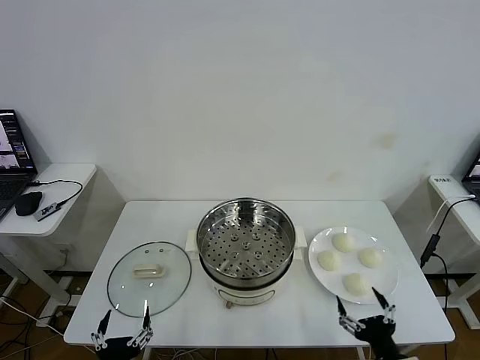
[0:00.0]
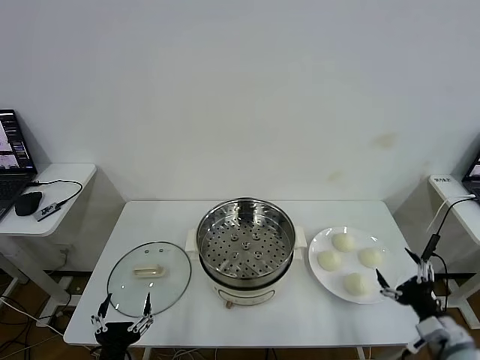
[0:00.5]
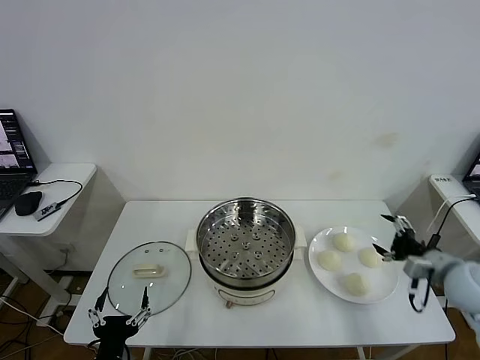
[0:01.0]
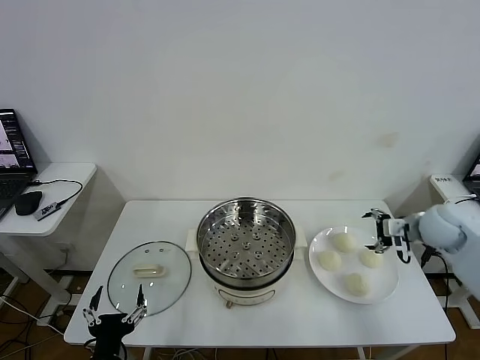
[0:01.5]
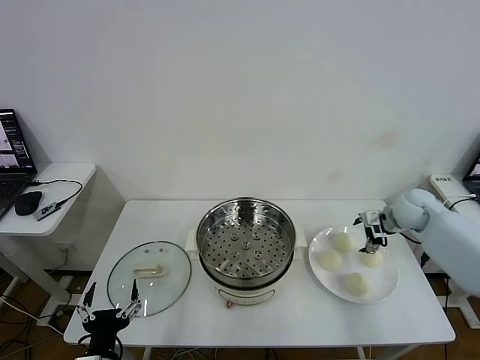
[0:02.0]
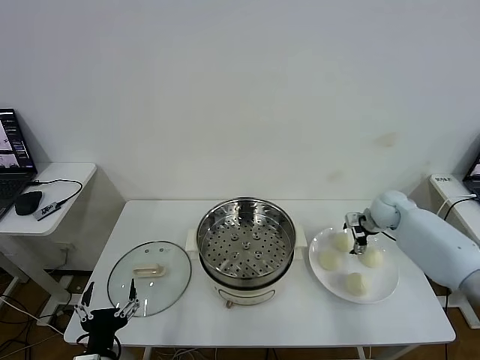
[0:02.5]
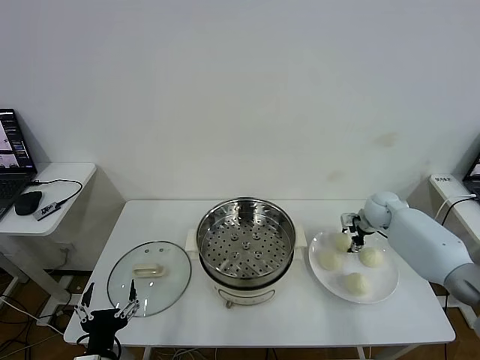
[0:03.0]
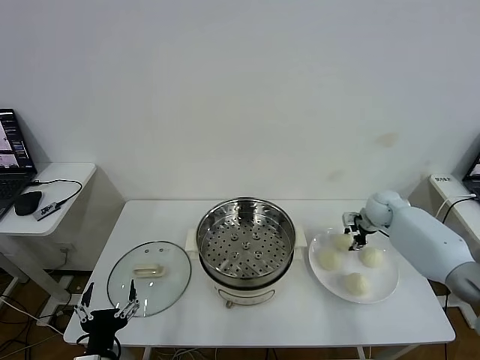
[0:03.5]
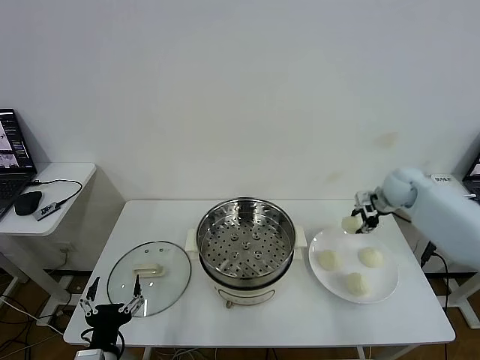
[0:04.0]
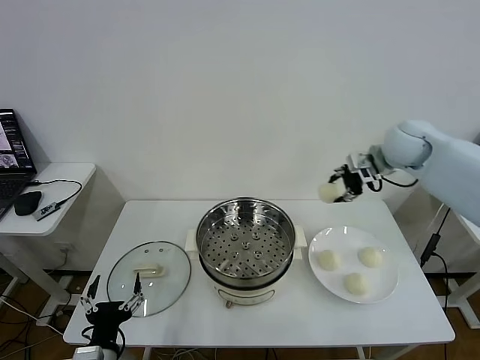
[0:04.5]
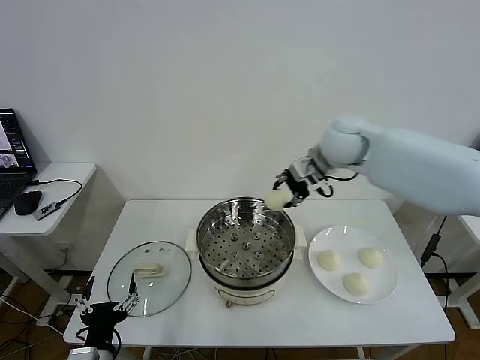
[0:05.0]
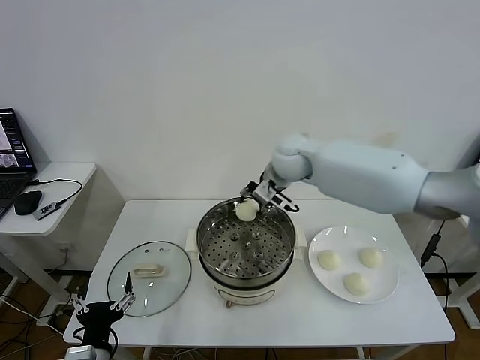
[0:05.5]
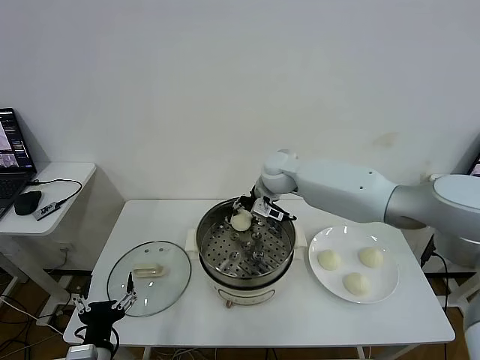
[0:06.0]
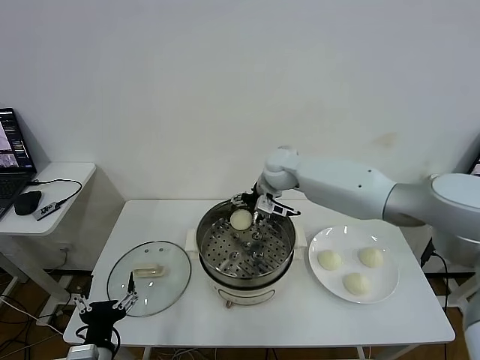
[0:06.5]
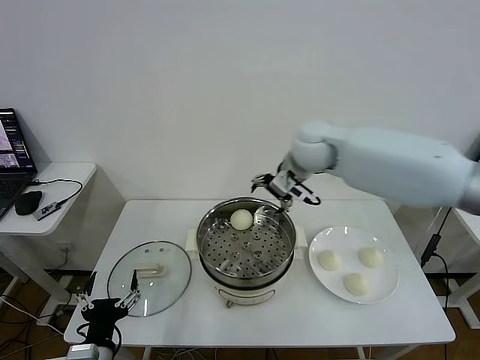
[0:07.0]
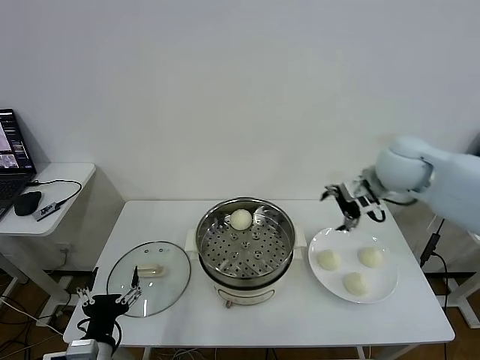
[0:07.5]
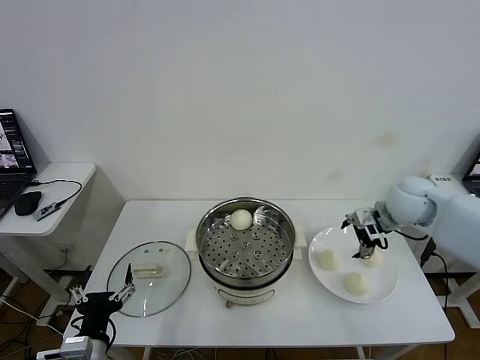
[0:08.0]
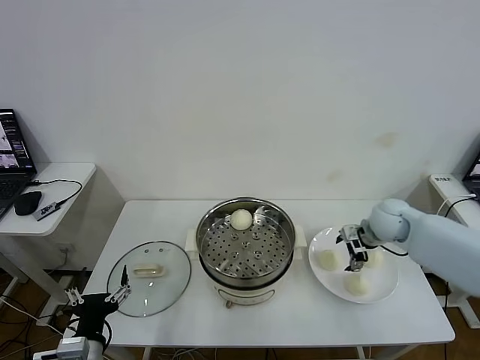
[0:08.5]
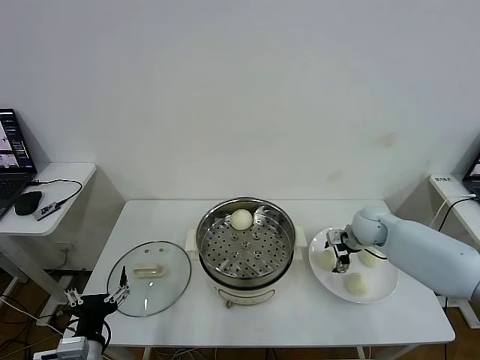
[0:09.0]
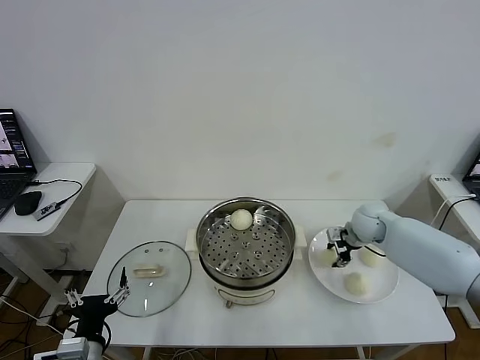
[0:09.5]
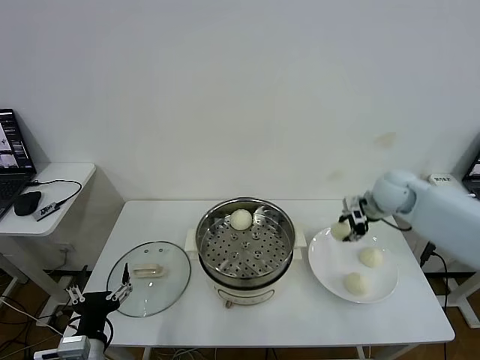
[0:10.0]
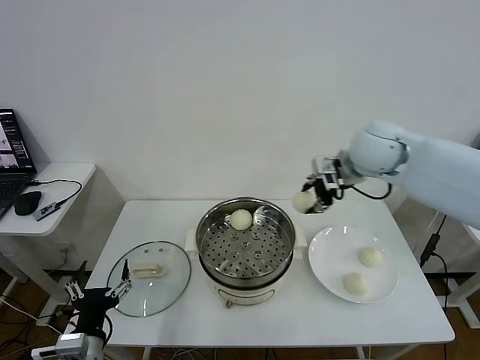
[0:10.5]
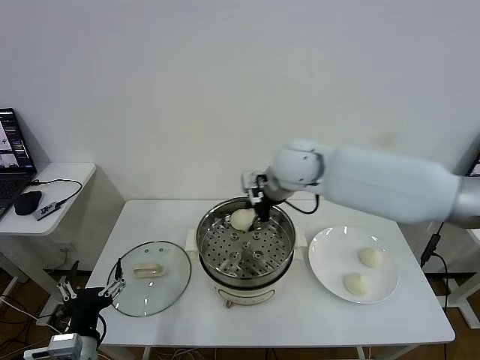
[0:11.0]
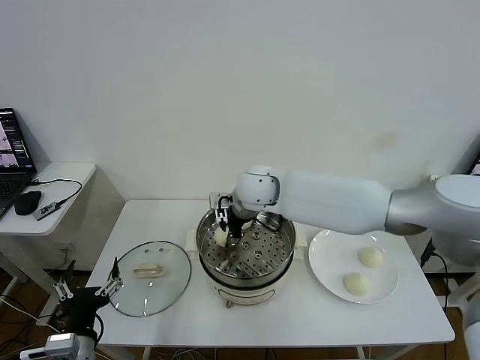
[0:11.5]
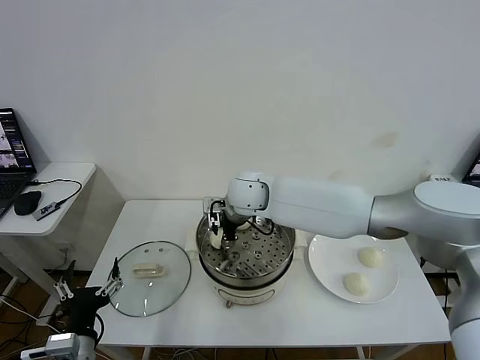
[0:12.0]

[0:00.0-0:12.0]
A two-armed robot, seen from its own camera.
Task of the whole recording: take steamed baozi put them in steamer then cover it.
Step, 0:00.0 to 0:03.0: Grasp the baozi in the plate with right gripper.
Step, 0:03.5 to 0:06.0: Place the baozi on the steamer with right gripper.
Step, 0:06.5 to 0:09.0: Grasp the baozi in the plate with right gripper.
0:02.0 to 0:04.0: The right gripper moves upward, some 5 cm, and closes up.
0:04.0 to 0:06.0: The right gripper is displaced to the left by about 30 cm.
0:06.0 to 0:08.0: The right gripper goes roughly 25 cm to the right, and opens.
0:08.0 to 0:10.0: The right gripper reaches roughly 10 cm downward, then returns, and closes up.
0:10.0 to 0:12.0: The right gripper shifts some 35 cm to the left.

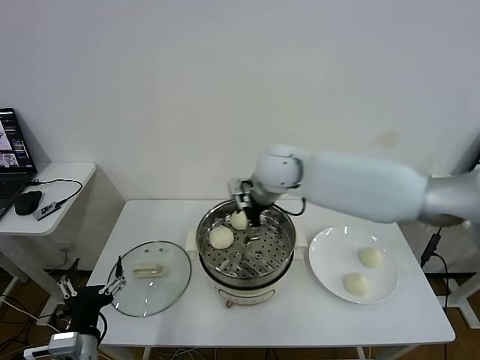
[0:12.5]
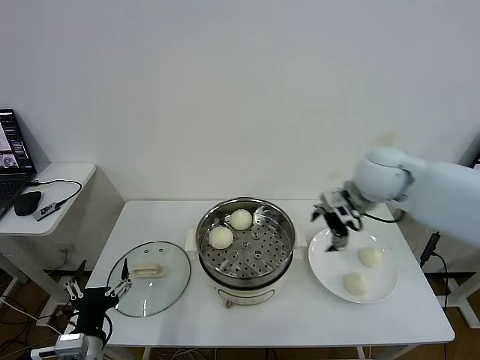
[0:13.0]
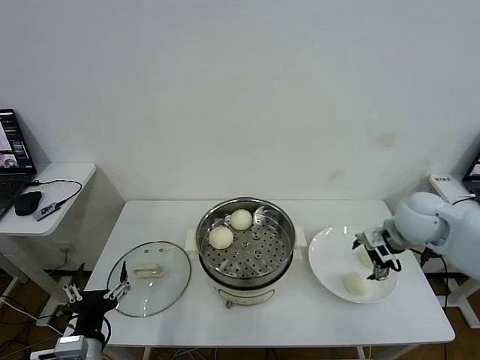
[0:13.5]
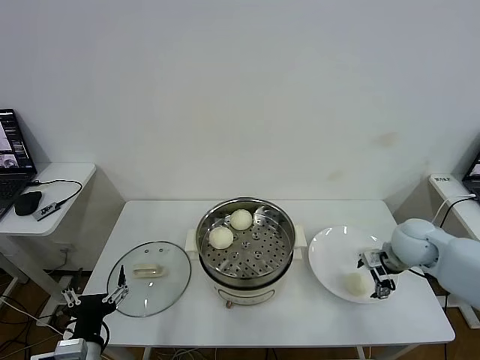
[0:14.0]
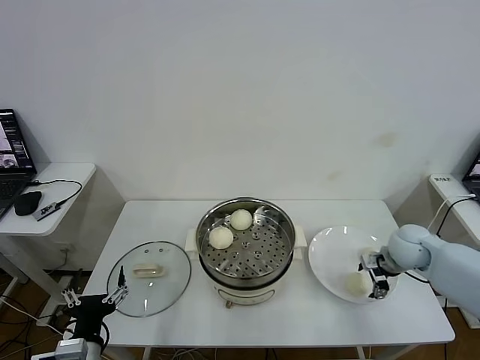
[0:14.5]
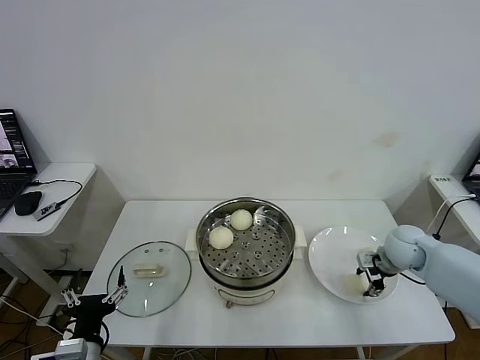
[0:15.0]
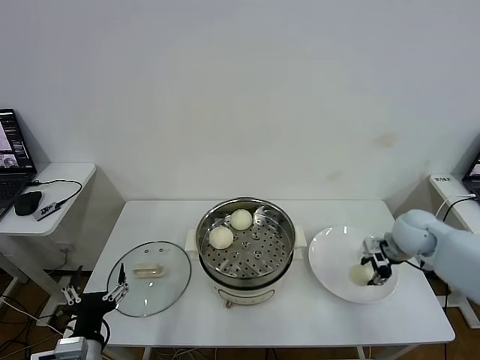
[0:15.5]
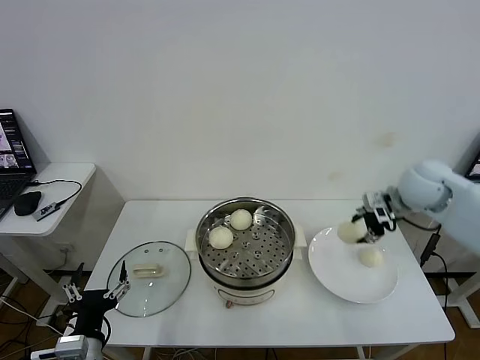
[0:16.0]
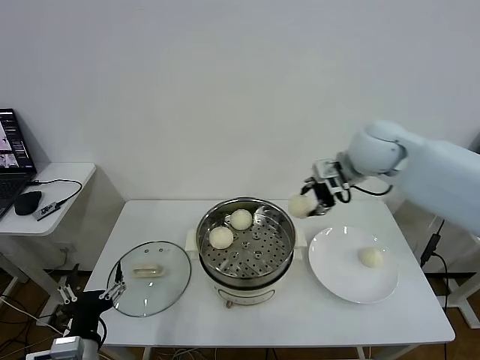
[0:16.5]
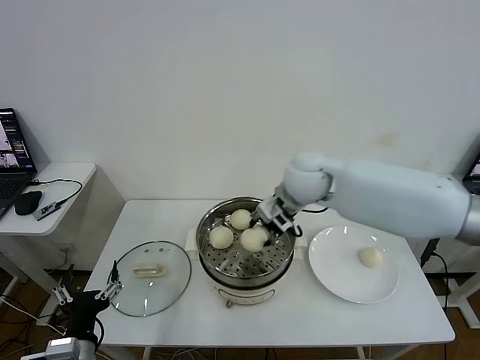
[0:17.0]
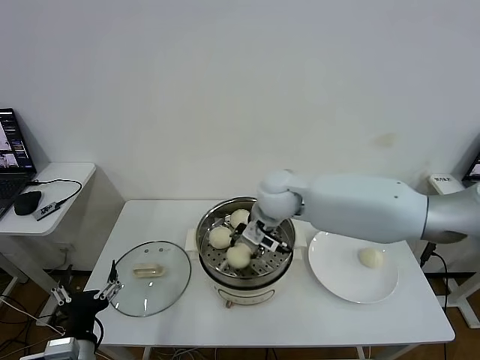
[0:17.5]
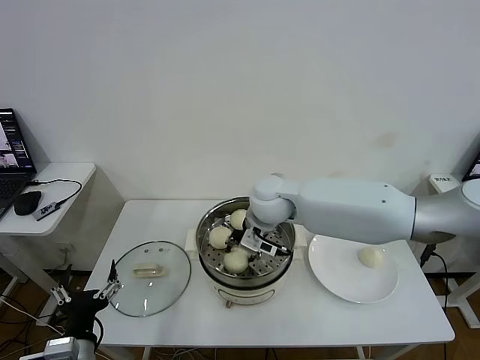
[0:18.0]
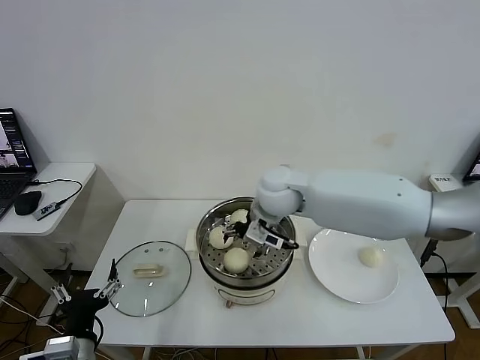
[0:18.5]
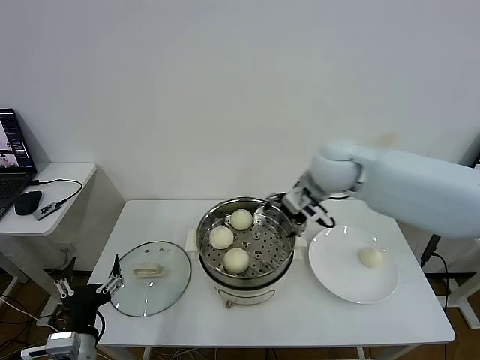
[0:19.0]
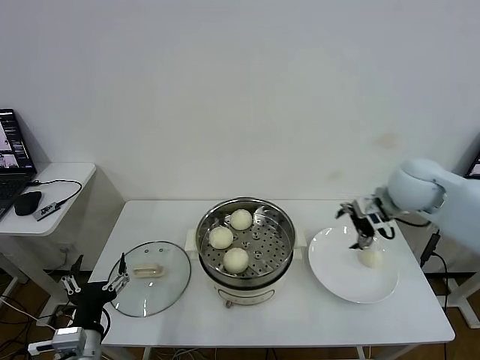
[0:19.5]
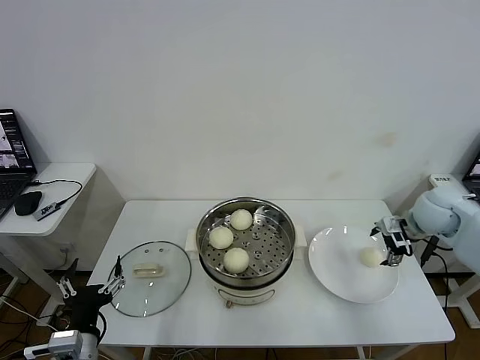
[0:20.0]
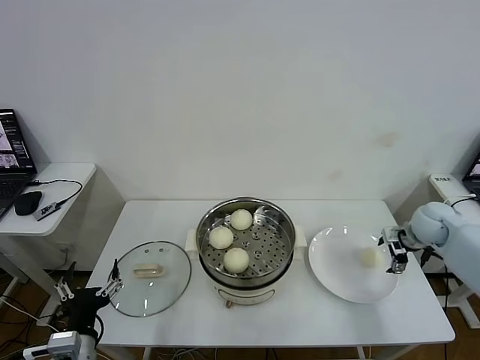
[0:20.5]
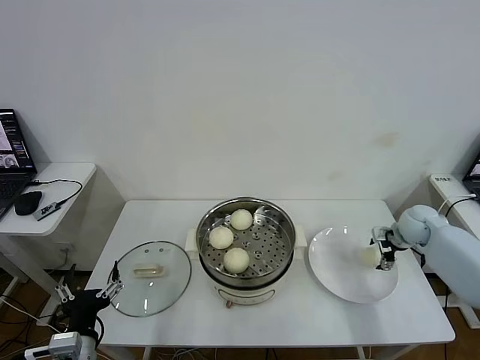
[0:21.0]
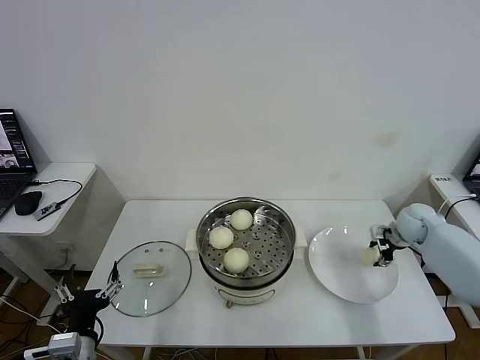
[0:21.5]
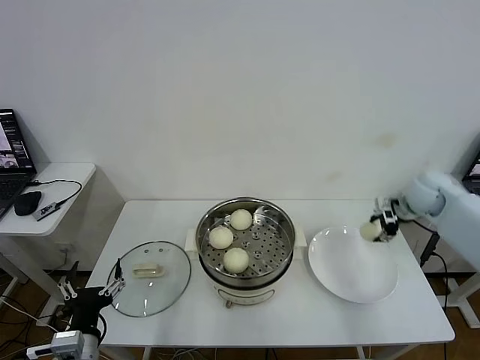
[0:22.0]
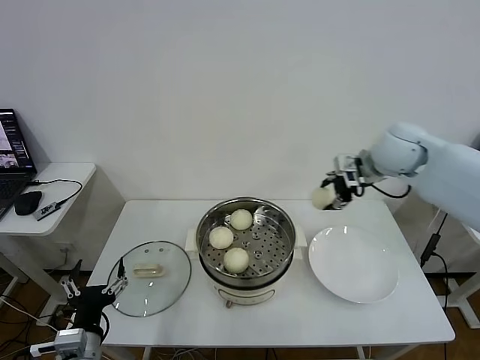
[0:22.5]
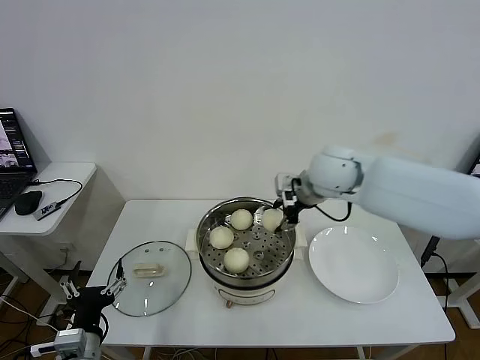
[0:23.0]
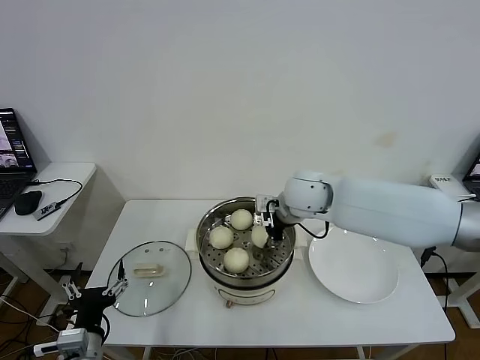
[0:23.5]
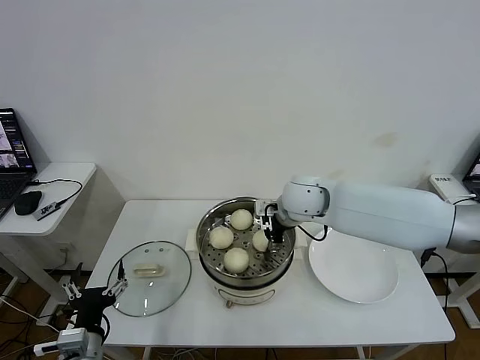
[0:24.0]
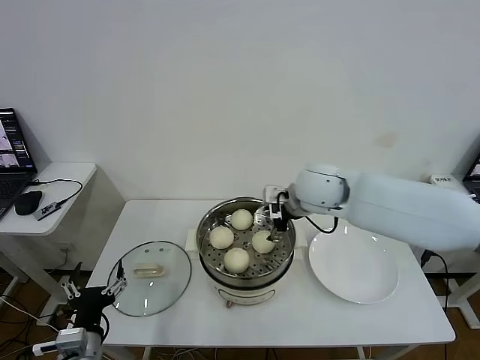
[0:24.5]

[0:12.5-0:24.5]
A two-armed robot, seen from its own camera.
Task of the whole recording: take steamed baozi put them in steamer then cover it.
Step, 0:12.5 to 0:15.0: Grasp the baozi in the plate with right gripper.
Step, 0:15.5 to 0:18.0: Place the baozi on the steamer with right gripper.
Step, 0:18.5 to 0:21.5: Grasp the baozi in the plate with right gripper.
Step, 0:22.0 to 0:24.0: Place the baozi on the steamer with right gripper.
0:12.5 to 0:14.5: The right gripper is displaced to the right and downward by some 35 cm.
0:14.5 to 0:16.5: The right gripper shifts approximately 25 cm upward and to the left, and closes its fingers.
0:16.5 to 0:18.5: The right gripper heads to the left and downward, covering about 20 cm, and opens.
0:18.5 to 0:20.5: The right gripper travels to the right by some 40 cm.
0:20.5 to 0:22.5: The right gripper moves upward and to the left, about 25 cm, and closes.
0:22.5 to 0:24.5: The right gripper travels to the left and downward by approximately 15 cm, and opens.

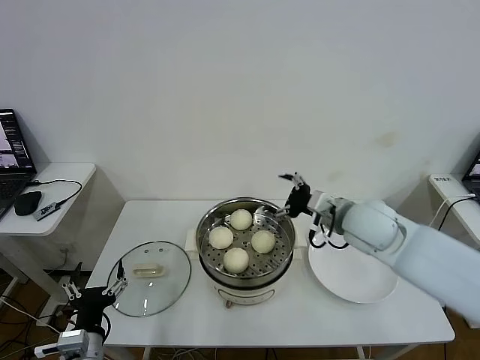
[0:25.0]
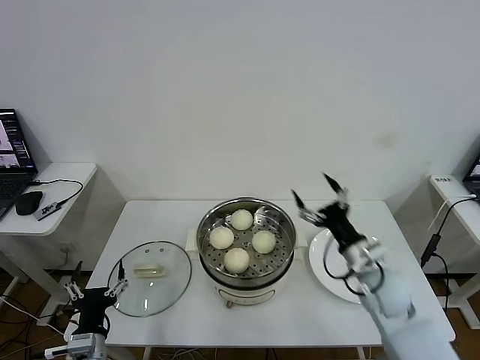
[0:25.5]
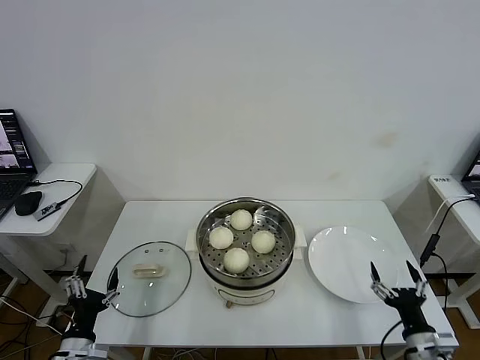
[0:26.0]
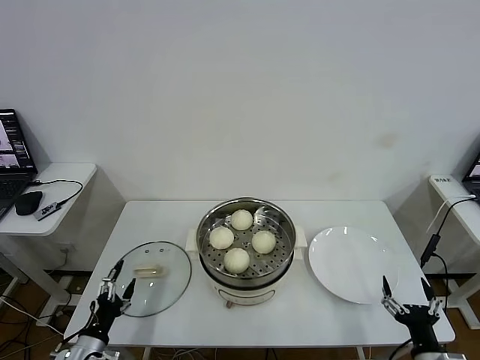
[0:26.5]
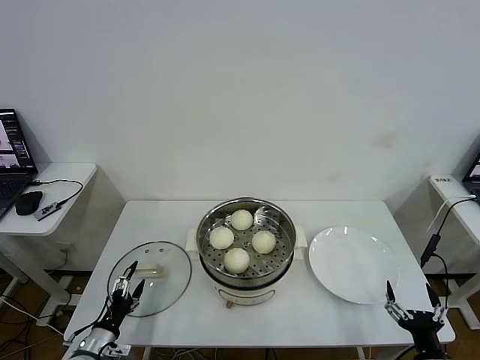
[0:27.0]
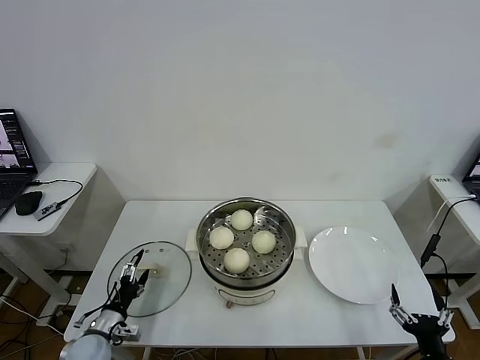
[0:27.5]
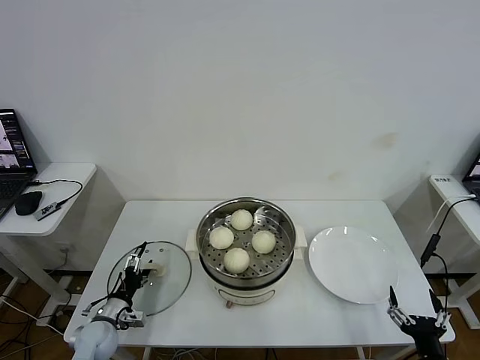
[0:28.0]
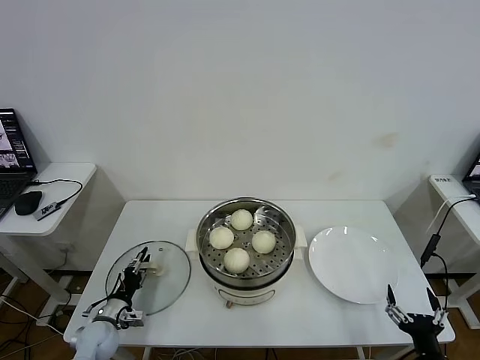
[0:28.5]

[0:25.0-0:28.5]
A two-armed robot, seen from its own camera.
Task of the whole recording: take steamed baozi put them in steamer then cover it.
0:25.0 to 0:27.0: The right gripper is displaced backward, downward and to the right by some 40 cm; the left gripper heads downward and to the left, covering some 15 cm.
0:27.0 to 0:28.5: The left gripper goes about 10 cm forward, and closes its fingers.
